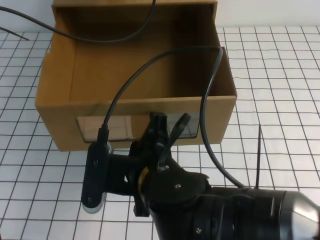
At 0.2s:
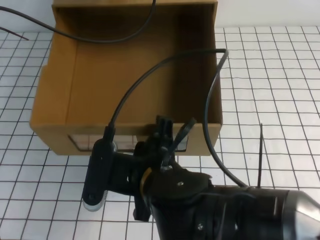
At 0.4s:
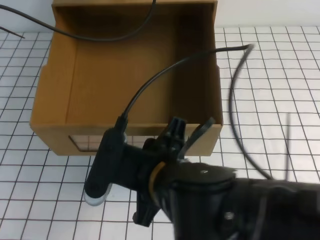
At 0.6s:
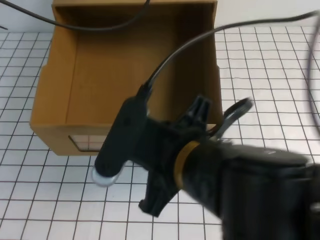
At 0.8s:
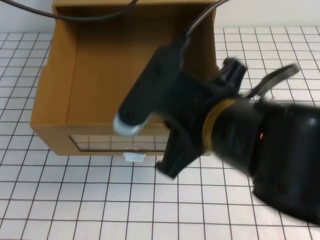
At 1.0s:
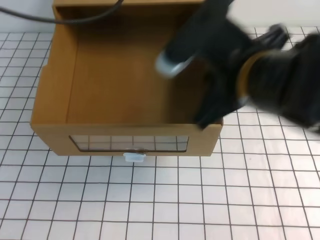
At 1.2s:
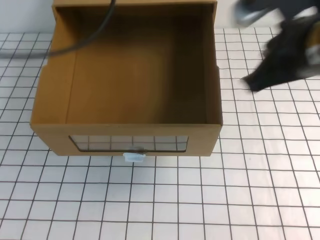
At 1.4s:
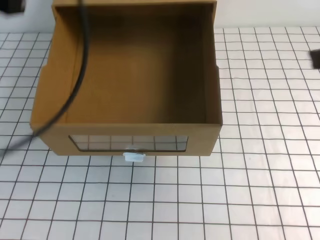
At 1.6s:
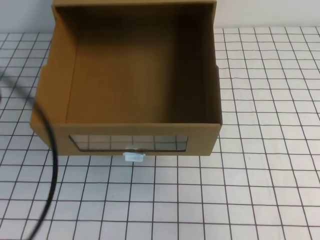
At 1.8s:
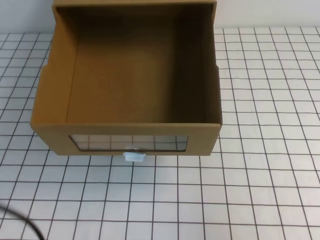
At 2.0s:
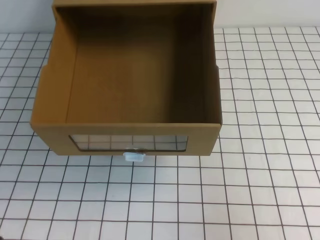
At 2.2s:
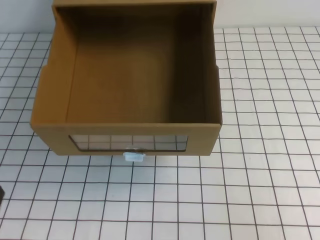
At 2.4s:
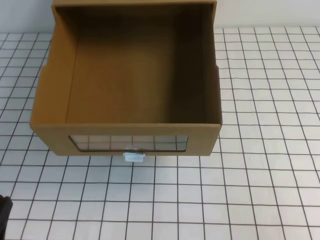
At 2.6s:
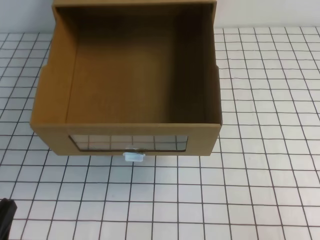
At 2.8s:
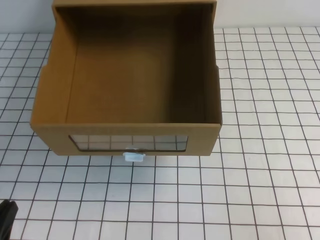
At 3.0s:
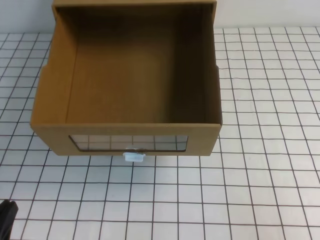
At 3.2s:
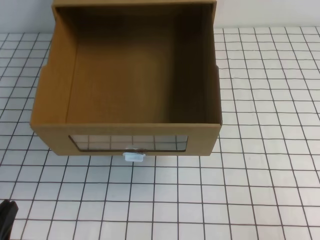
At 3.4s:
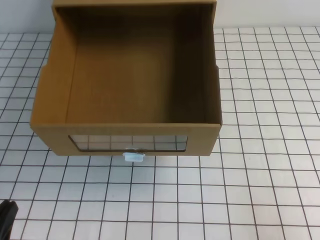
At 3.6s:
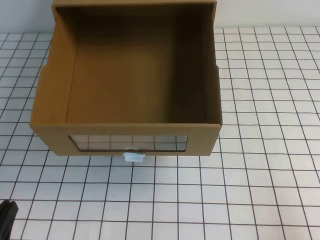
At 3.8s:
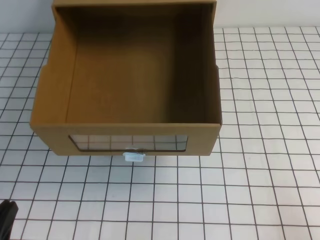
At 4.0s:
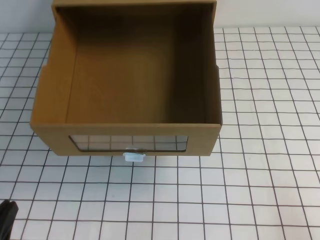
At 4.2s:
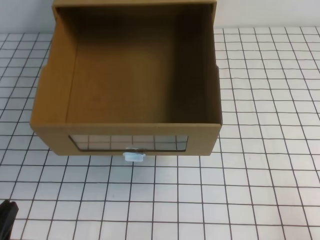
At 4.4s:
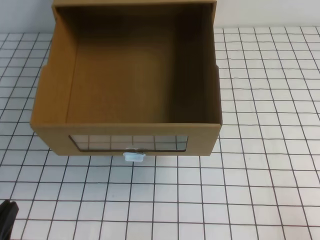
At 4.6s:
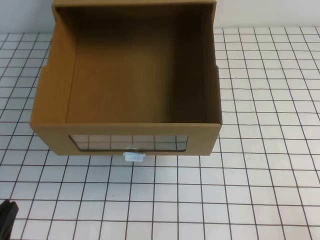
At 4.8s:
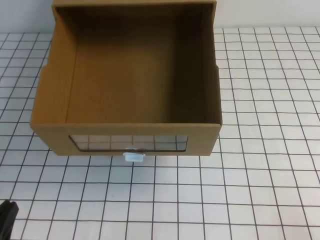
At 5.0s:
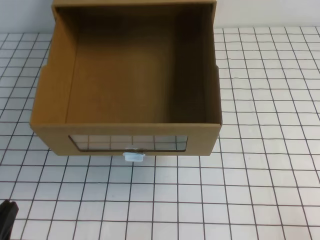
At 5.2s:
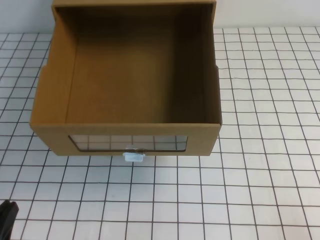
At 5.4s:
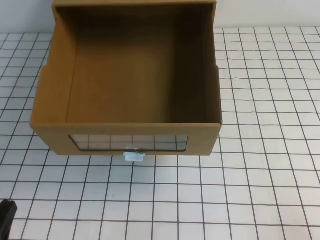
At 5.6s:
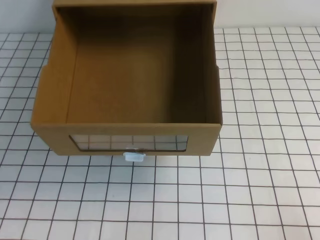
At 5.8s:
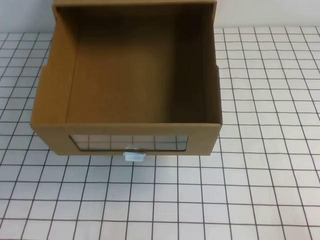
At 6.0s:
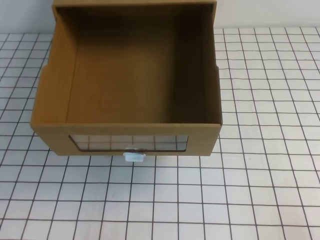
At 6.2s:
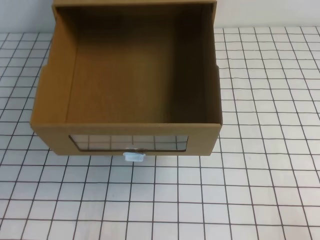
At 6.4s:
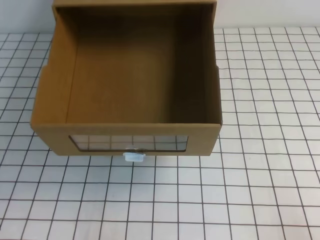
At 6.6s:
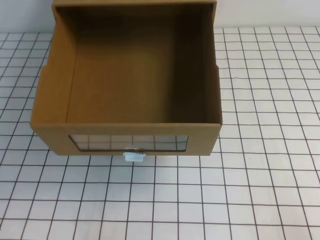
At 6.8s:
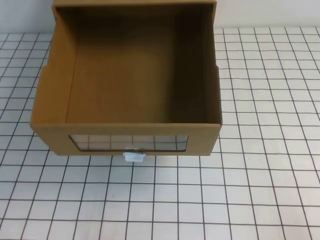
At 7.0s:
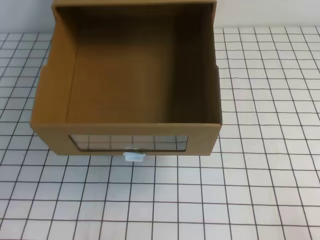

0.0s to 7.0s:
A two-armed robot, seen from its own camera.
Task of the whole recording: open the shoebox on the white tablecloth.
Step, 0.0s to 7.0s: Open the shoe box.
0.0s to 1.4s: The right gripper is displaced to the right and upward by approximately 25 cm, and opens and closes again, while the left gripper moves backward, roughly 20 cm.
1.4s to 2.8s: The right gripper moves downward, backward and to the right, about 20 cm; the left gripper moves downward and backward, some 35 cm.

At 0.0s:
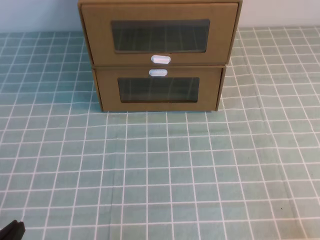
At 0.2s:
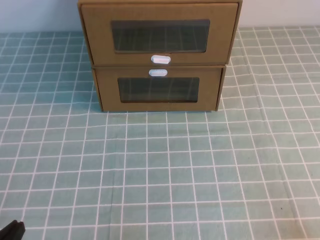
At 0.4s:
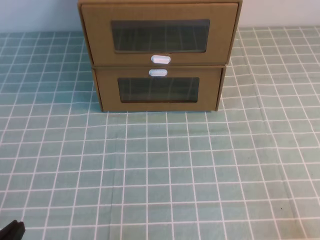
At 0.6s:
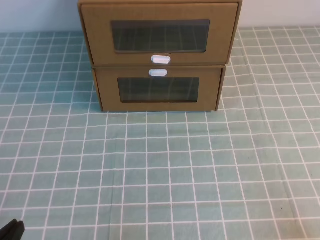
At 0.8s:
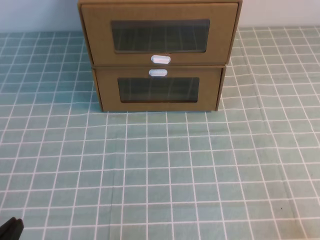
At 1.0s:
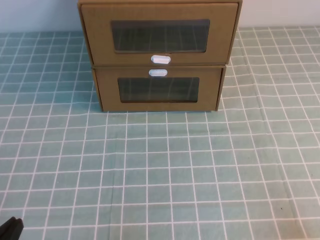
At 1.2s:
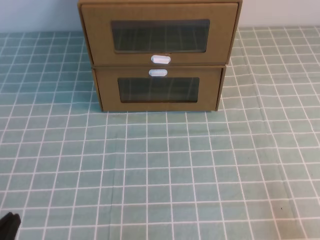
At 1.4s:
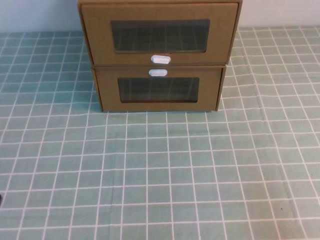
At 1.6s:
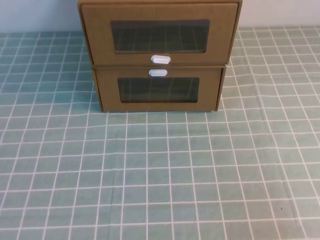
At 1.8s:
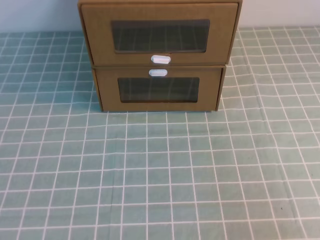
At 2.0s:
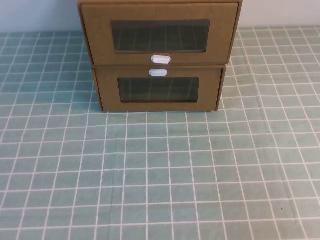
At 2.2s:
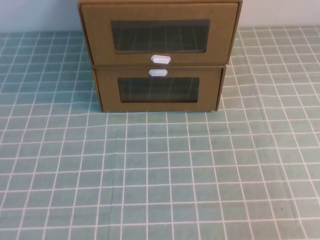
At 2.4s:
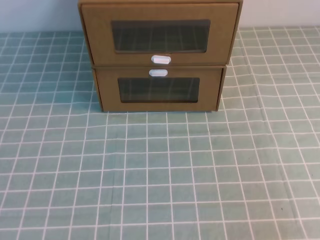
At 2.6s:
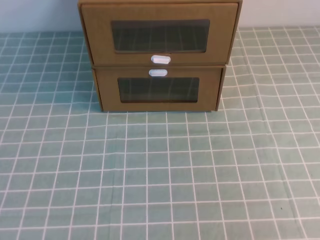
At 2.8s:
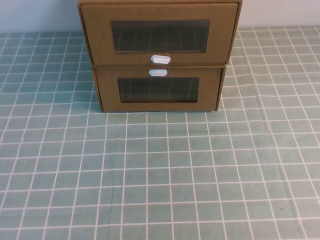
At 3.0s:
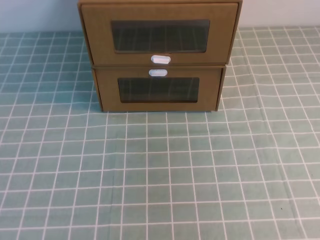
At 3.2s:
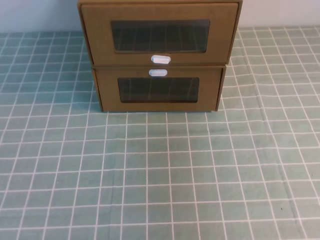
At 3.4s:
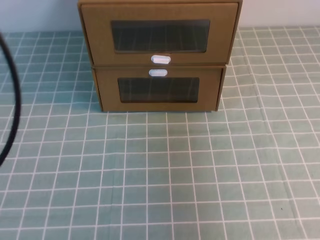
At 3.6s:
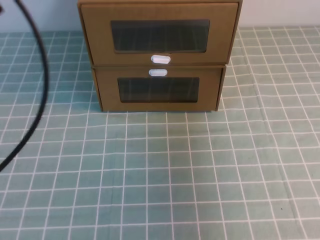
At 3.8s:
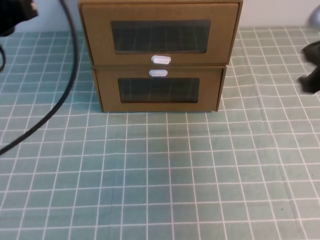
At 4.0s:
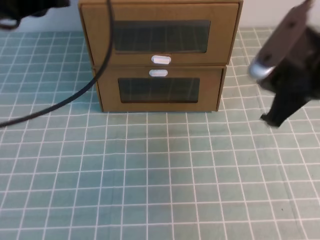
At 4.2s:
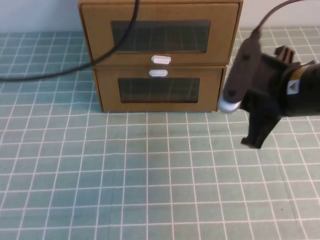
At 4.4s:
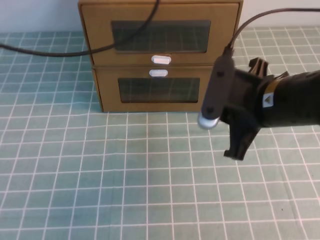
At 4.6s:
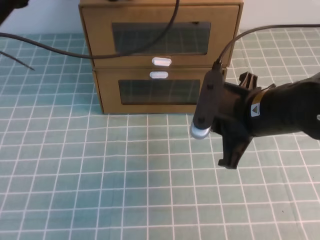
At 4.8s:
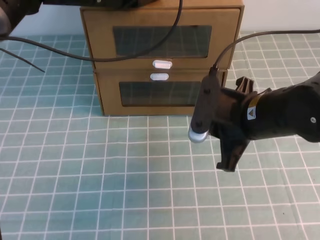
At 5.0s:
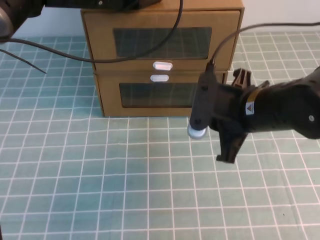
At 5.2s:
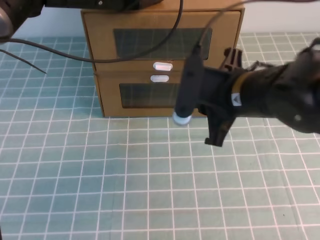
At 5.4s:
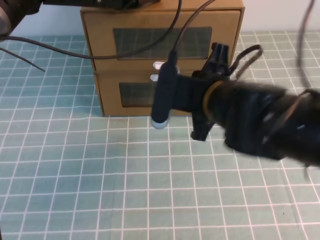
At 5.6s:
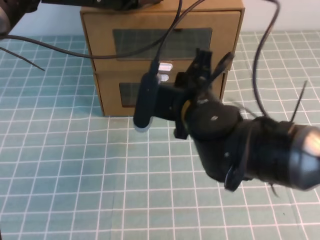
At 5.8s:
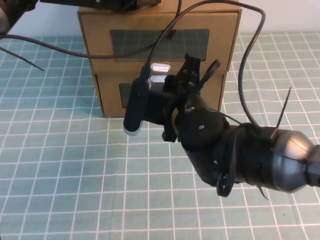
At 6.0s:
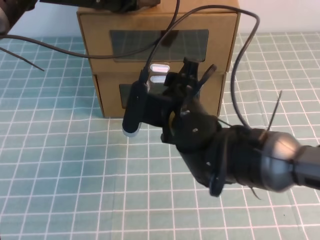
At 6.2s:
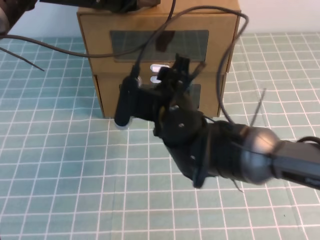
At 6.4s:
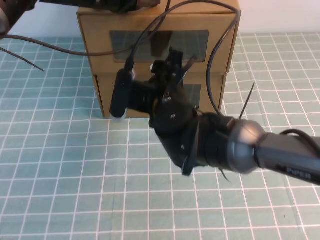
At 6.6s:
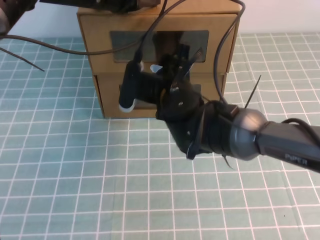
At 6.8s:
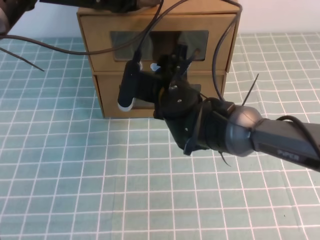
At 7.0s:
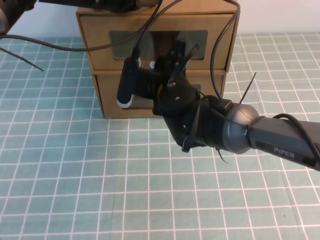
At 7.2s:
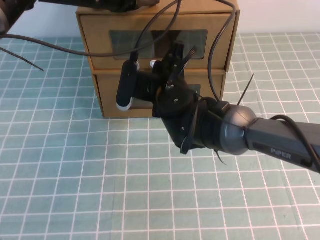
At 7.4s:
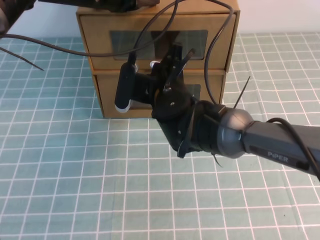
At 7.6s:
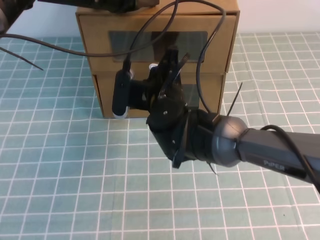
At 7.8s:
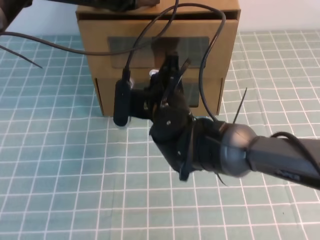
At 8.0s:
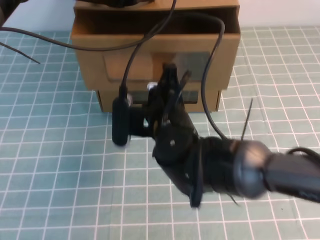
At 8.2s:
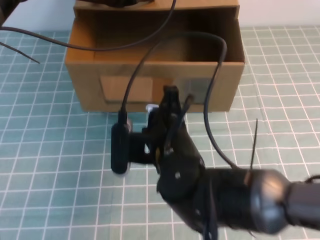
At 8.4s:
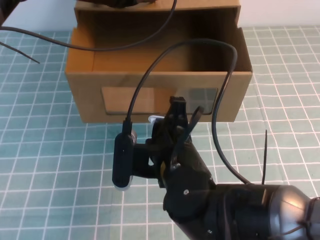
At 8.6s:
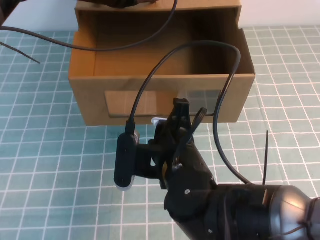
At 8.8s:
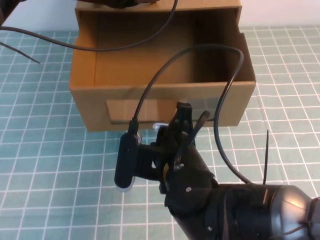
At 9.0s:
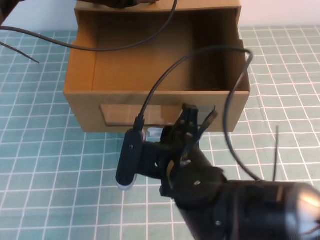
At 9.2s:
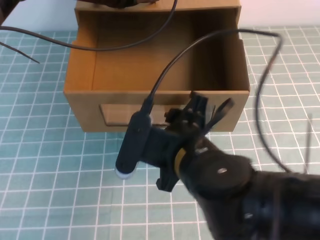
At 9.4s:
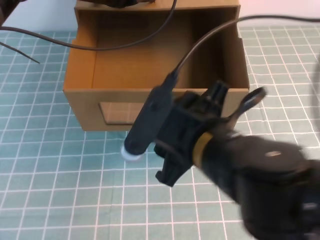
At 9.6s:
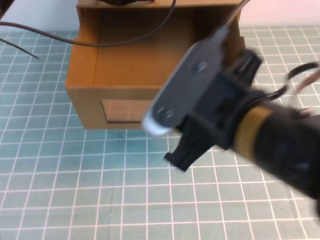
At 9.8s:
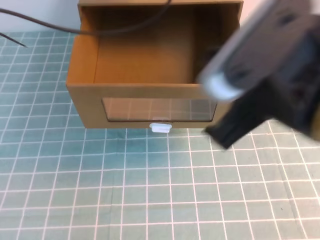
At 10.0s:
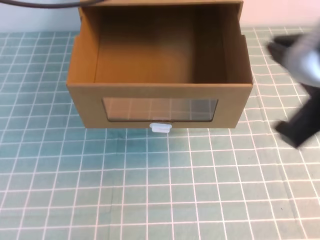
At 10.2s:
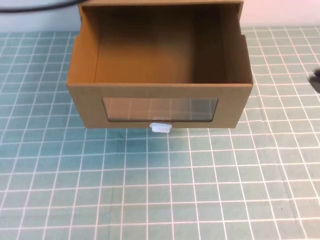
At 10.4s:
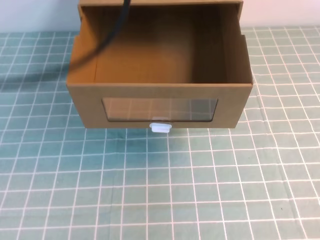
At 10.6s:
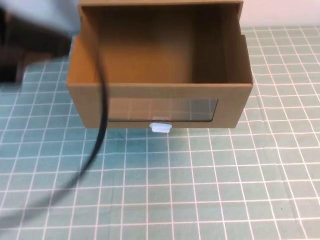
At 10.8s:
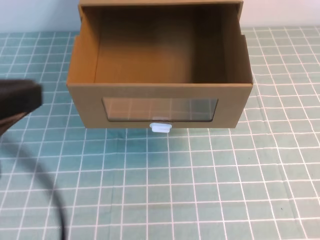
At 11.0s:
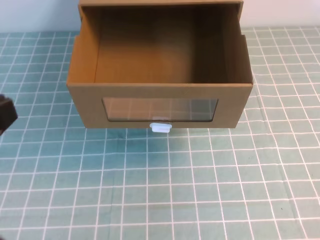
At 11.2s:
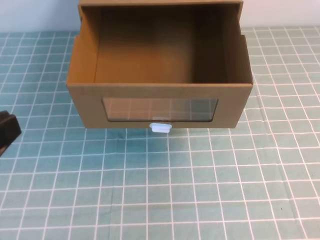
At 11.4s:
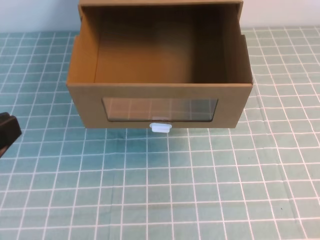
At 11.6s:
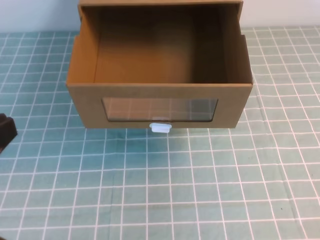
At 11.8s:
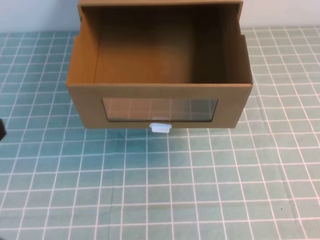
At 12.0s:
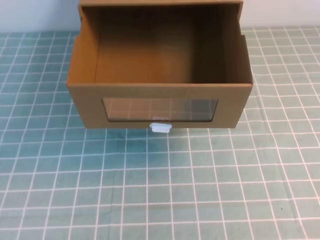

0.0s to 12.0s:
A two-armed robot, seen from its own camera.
Task of the whole recording: open the shoebox on the cyan tablecloth.
3.0s to 4.4s: The right gripper travels forward, downward and to the left by approximately 30 cm, while the left gripper travels forward and to the right by about 30 cm.
4.4s to 6.0s: The right gripper goes about 10 cm to the left, and opens up; the left gripper is displaced forward and downward by roughly 10 cm.
6.0s to 7.6s: The right gripper heads forward, covering approximately 5 cm, and closes its fingers.
7.6s to 9.0s: The right gripper goes some 15 cm backward, and opens up.
9.0s to 10.4s: The left gripper moves backward and upward, approximately 25 cm. Meanwhile the right gripper goes roughly 30 cm to the right, upward and backward, and closes.
10.4s to 12.0s: The left gripper is displaced downward, backward and to the left by approximately 25 cm.
